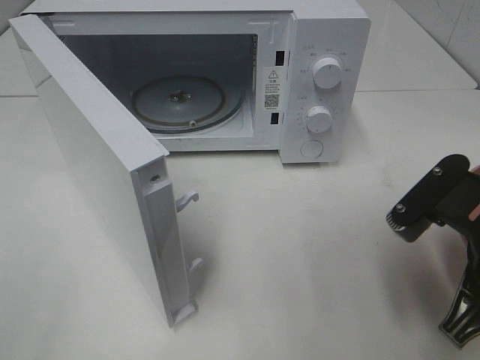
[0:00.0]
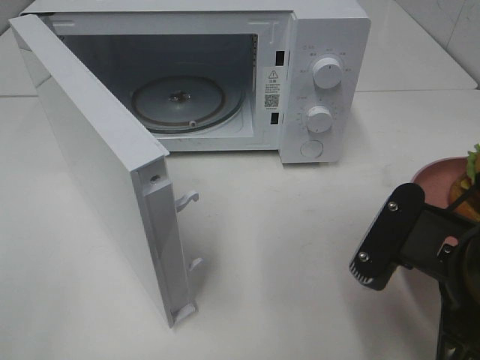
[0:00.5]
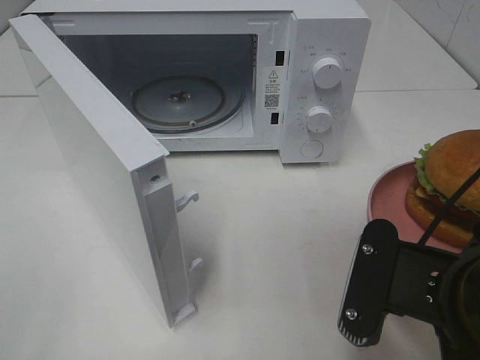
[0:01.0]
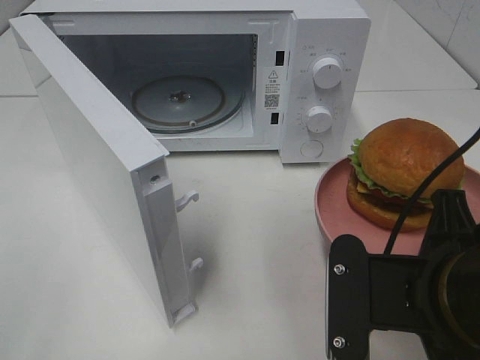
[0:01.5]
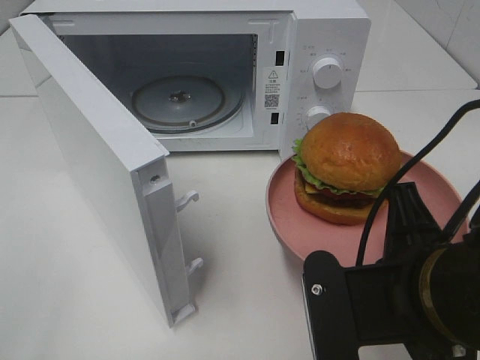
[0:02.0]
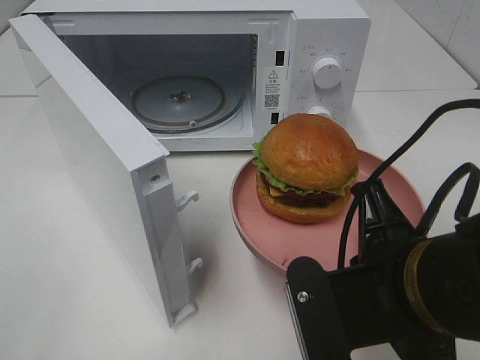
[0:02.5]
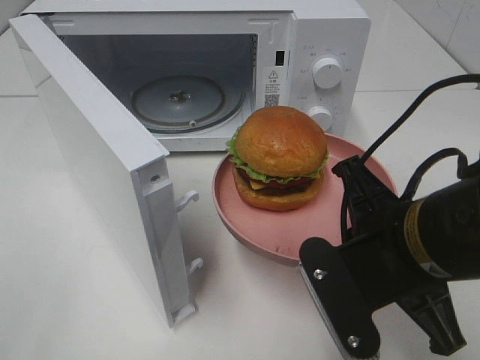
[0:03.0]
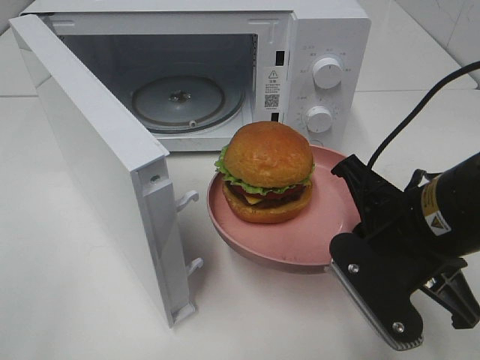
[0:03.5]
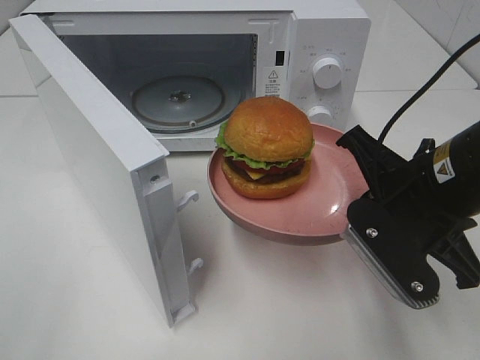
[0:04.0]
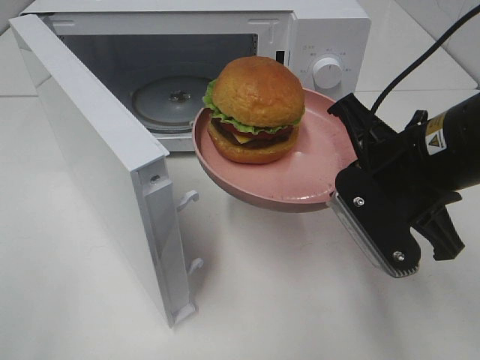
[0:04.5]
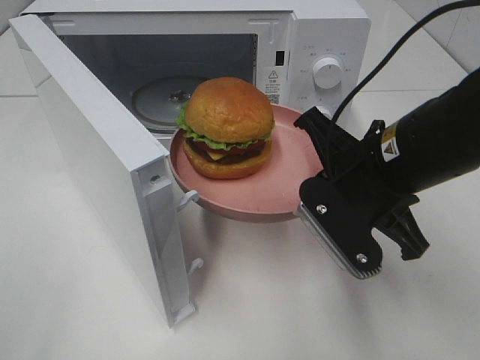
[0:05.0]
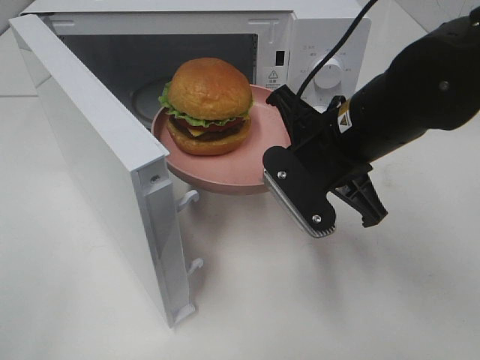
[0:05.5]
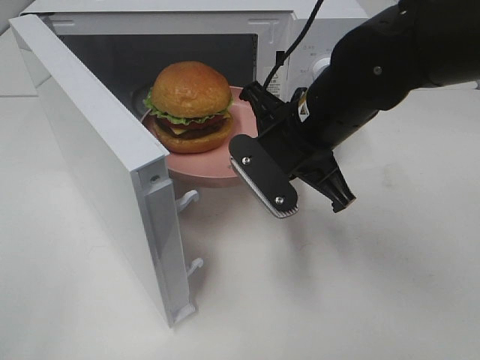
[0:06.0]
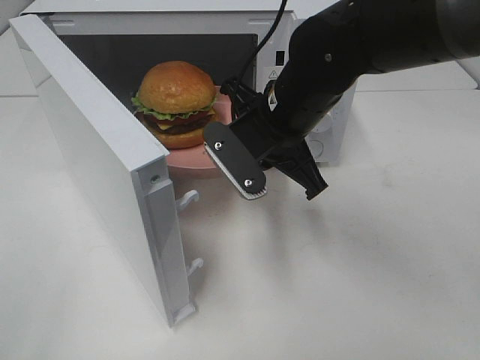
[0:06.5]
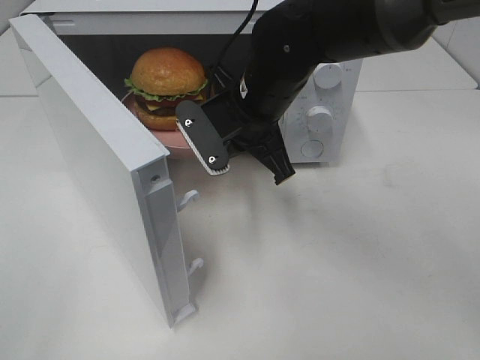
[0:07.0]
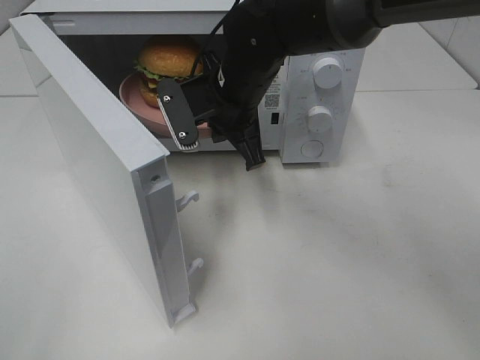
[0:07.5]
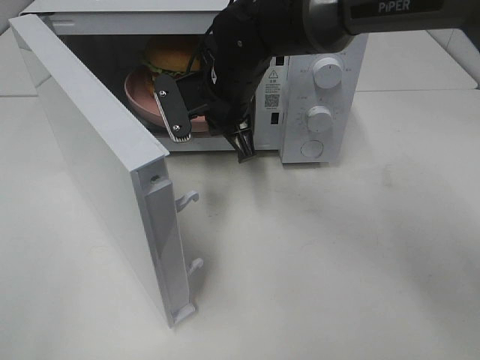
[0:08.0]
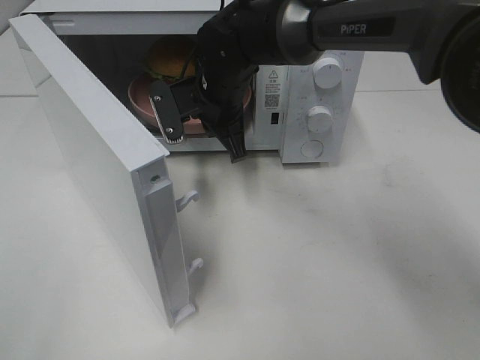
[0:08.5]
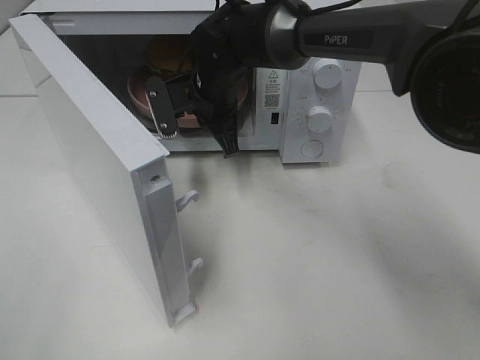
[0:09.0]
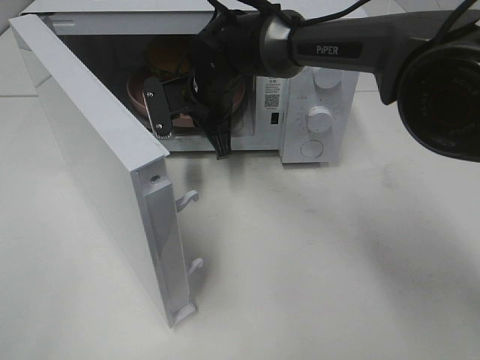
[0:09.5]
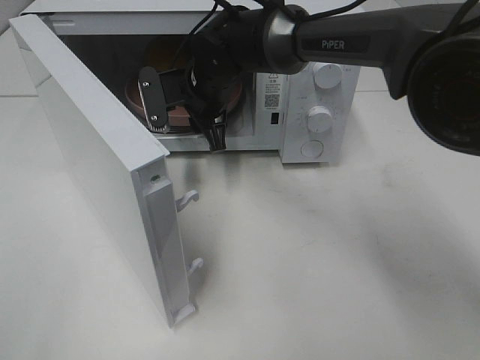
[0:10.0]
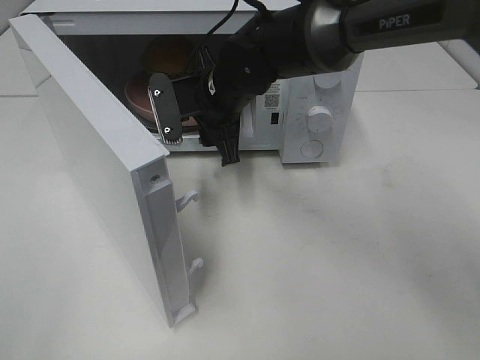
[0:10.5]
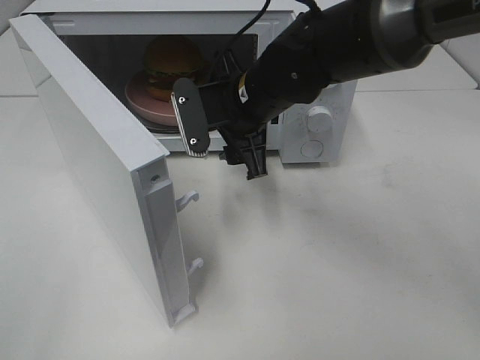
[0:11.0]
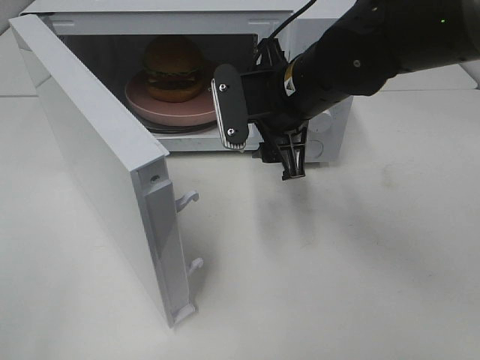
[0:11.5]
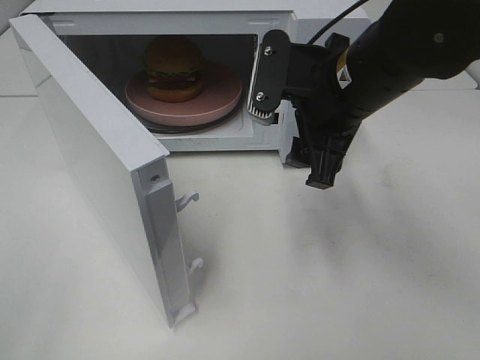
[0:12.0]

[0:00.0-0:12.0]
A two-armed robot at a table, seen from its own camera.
Task of the whole recording: Heat the burger.
Step, 0.0 to 10.0 s: Right hand: place the plate in the microwave.
0.0 to 2.0 s: The right gripper goes about 5 cm to the left.
2.0 to 4.0 s: The right gripper goes roughly 10 cm forward.
4.0 to 6.0 s: The right gripper travels to the left and forward by approximately 10 cm.
6.0 to 8.0 s: The right gripper shifts about 15 cm forward and to the left.
8.0 to 10.0 s: The right gripper shifts by some 5 cm, and opens its fingers.
10.0 to 12.0 s: The right gripper is displaced backward, to the right and upward by approximately 20 cm.

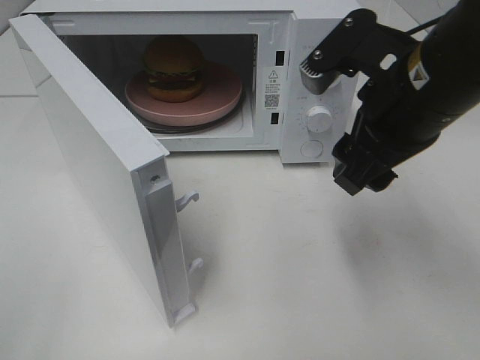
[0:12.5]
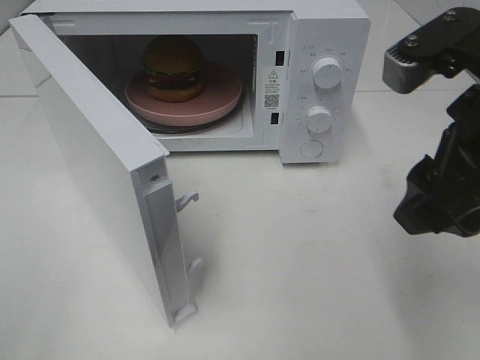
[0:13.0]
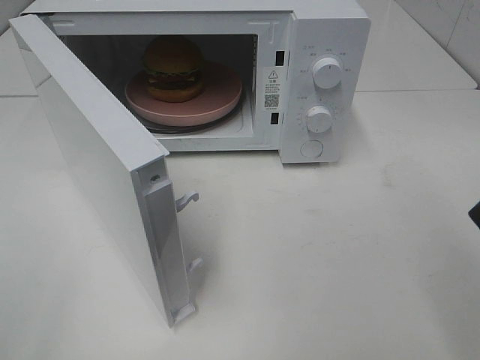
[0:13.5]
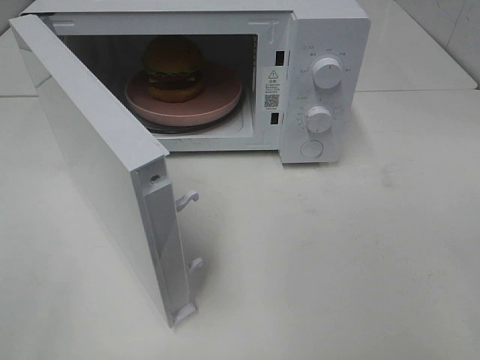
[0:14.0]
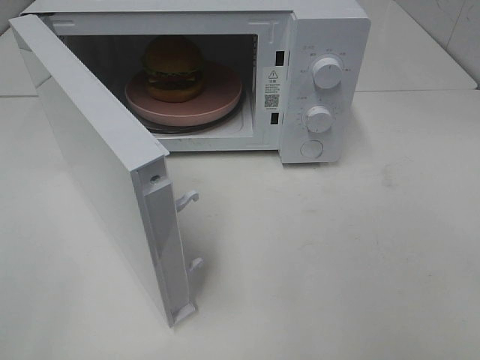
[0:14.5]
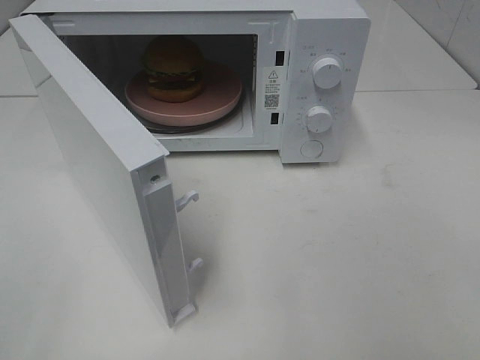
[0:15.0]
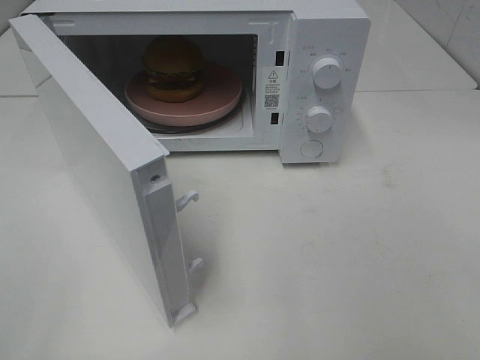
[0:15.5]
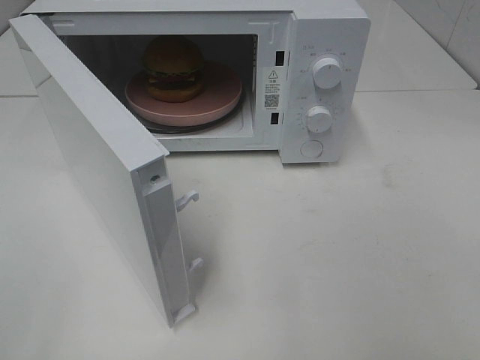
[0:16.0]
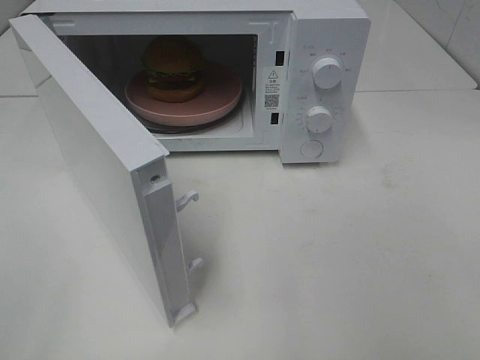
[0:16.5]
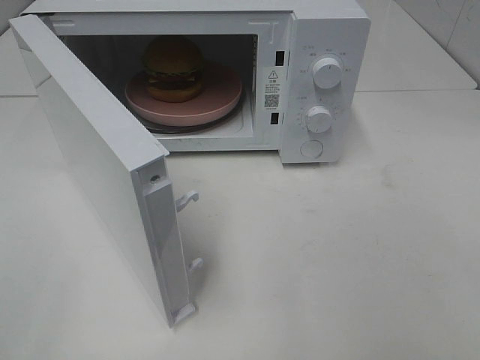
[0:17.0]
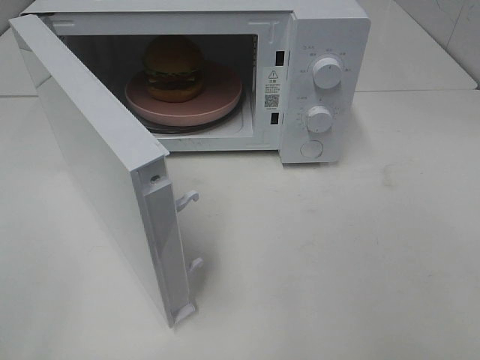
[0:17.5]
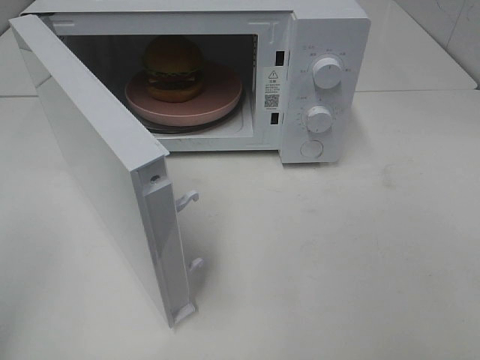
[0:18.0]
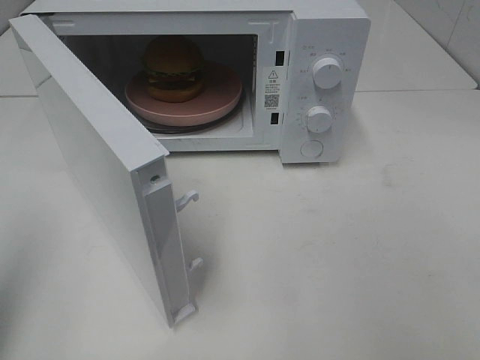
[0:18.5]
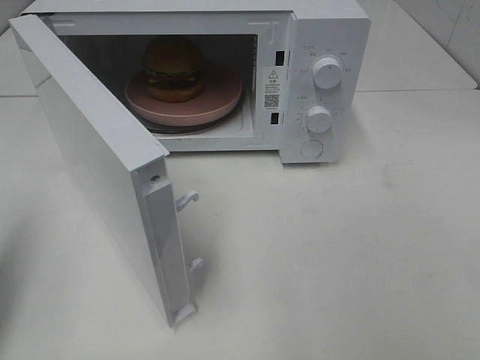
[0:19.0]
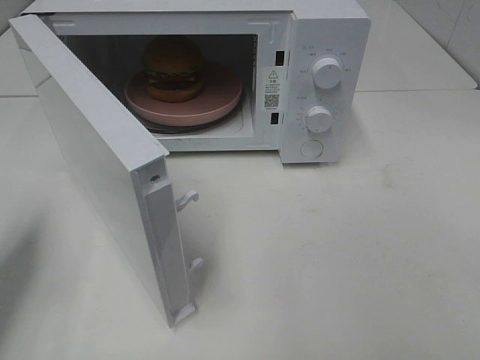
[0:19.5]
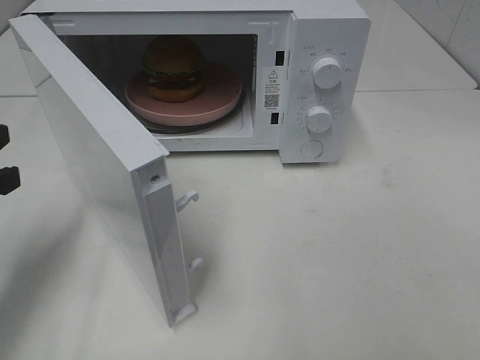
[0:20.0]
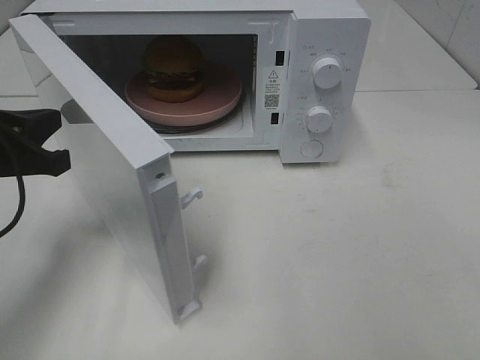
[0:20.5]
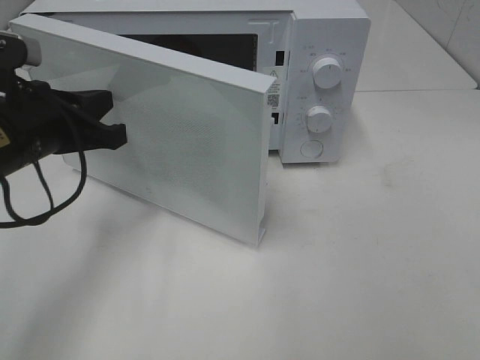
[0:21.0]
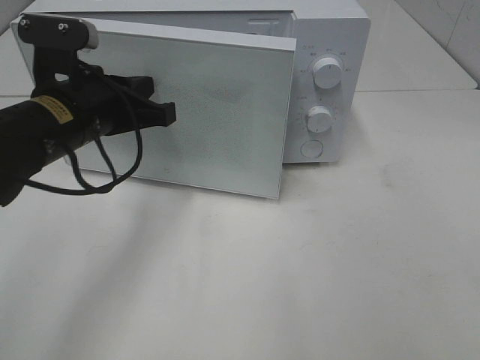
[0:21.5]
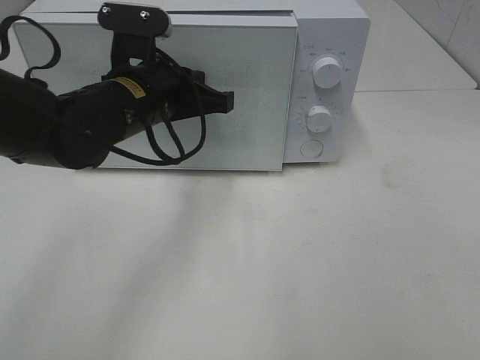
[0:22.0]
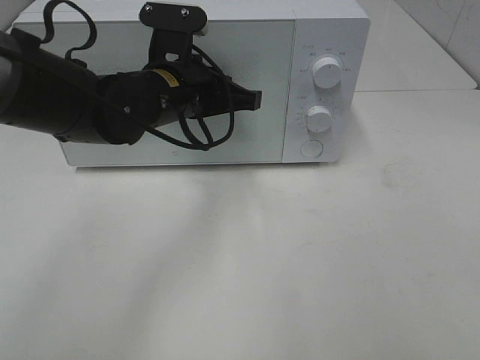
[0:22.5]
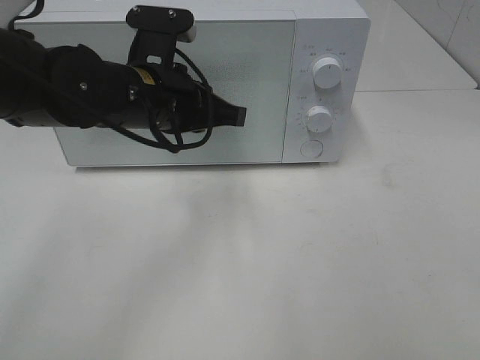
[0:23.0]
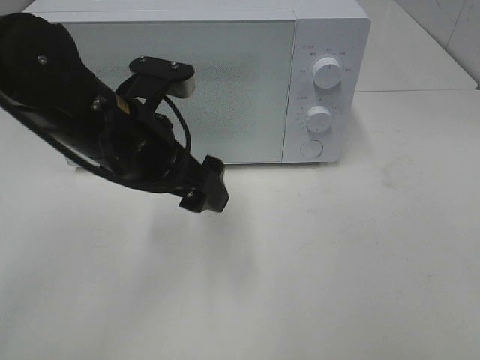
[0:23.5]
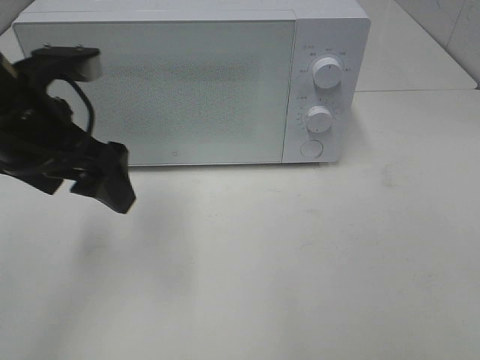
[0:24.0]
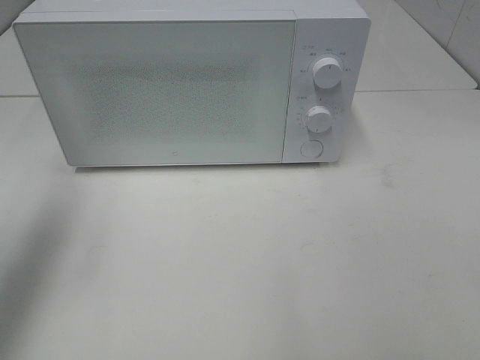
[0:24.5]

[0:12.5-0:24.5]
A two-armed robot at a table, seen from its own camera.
Task of the whole recording: Heat the burger.
Step, 12.5 to 23.0 s: Left hand: close the microwave door.
12.5 to 14.5 s: The right gripper goes some 25 cm backward and to the right.
16.5 to 18.5 s: The left gripper heads forward, covering about 10 cm, and closes its fingers.
18.5 to 20.5 s: The left gripper shifts about 20 cm forward, downward and to the right.
20.5 to 22.5 s: The left gripper is displaced to the right and forward by roughly 20 cm.
22.5 to 24.5 s: The left gripper moves to the left, upward and backward, about 30 cm, and opens.

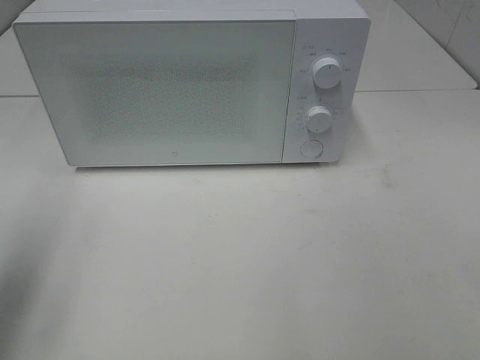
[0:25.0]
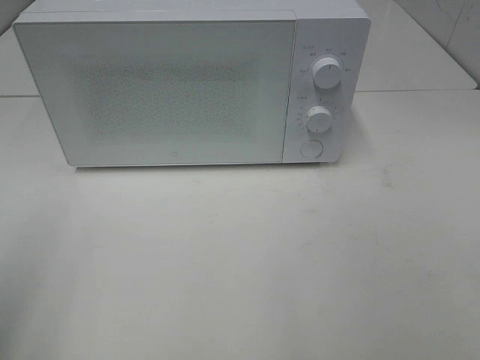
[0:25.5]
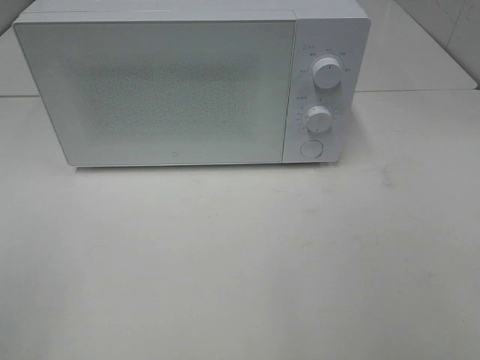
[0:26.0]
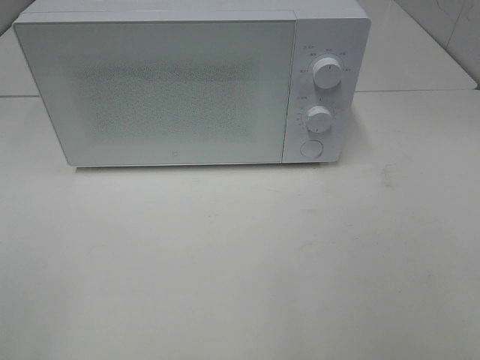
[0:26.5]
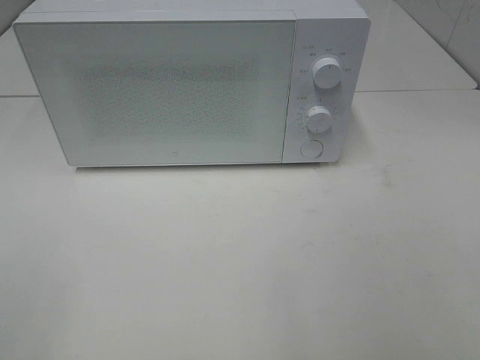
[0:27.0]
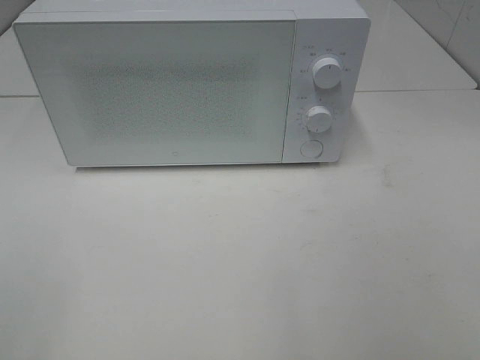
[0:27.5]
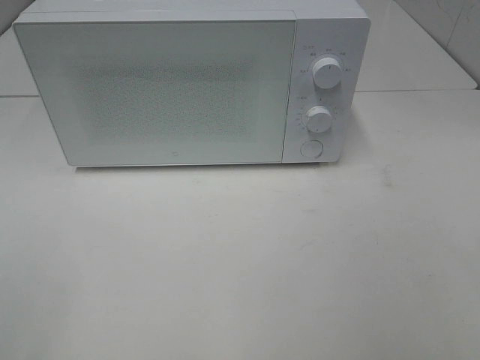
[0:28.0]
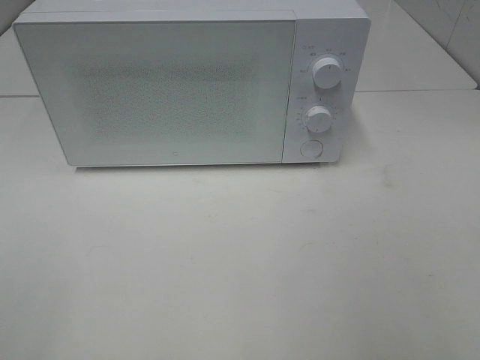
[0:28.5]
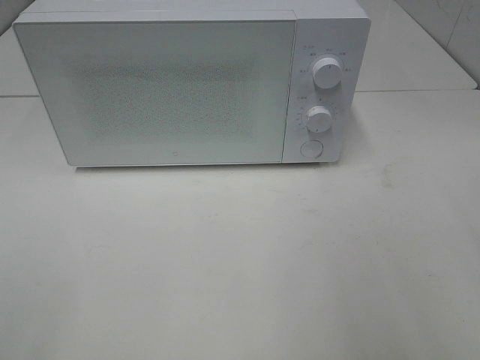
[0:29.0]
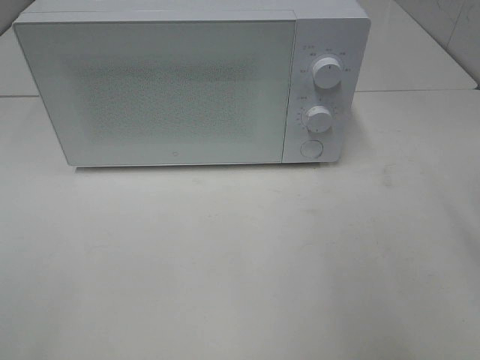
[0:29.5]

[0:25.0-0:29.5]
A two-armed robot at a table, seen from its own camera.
Task of the whole recording: Heat the burger.
25.0 to 27.0 s: The left gripper goes approximately 15 cm backward.
